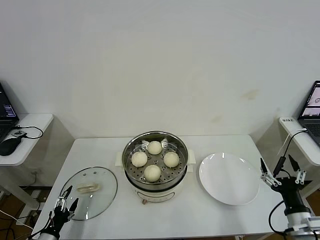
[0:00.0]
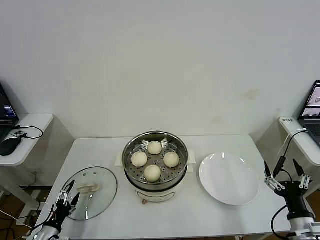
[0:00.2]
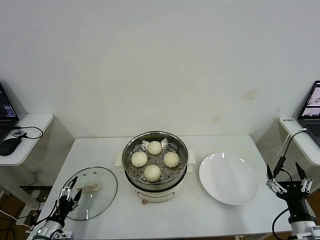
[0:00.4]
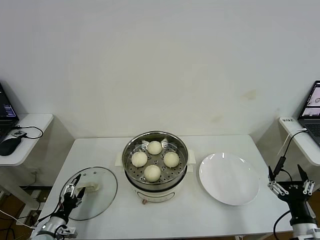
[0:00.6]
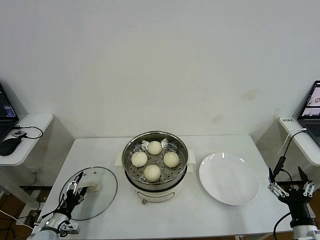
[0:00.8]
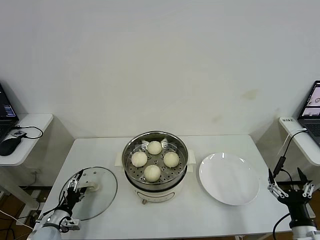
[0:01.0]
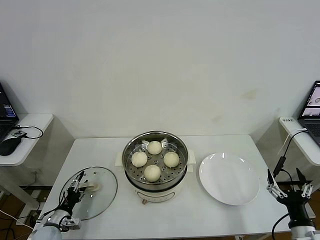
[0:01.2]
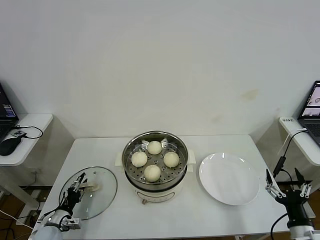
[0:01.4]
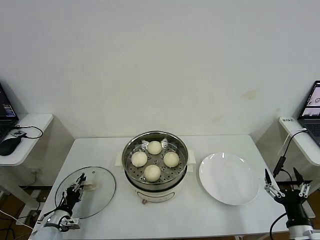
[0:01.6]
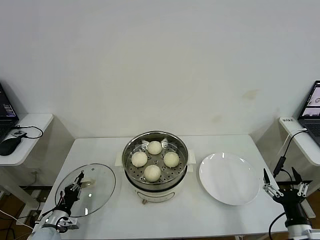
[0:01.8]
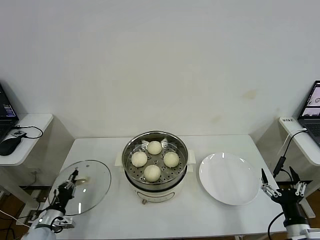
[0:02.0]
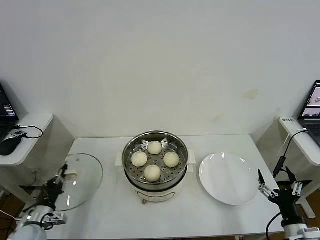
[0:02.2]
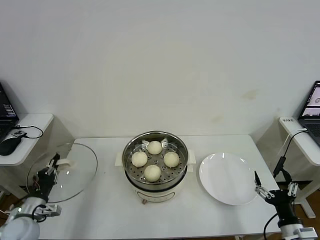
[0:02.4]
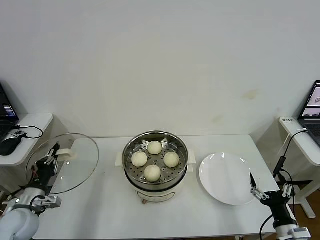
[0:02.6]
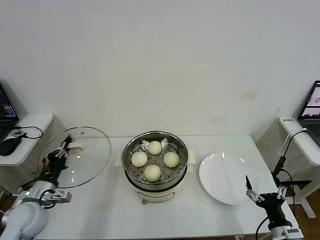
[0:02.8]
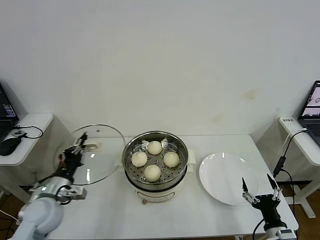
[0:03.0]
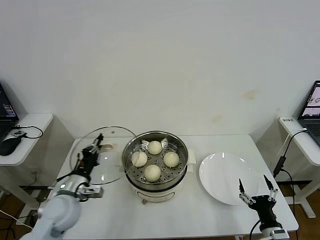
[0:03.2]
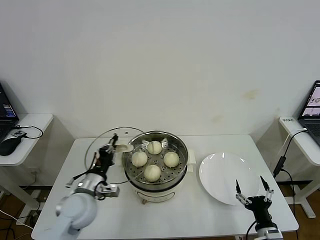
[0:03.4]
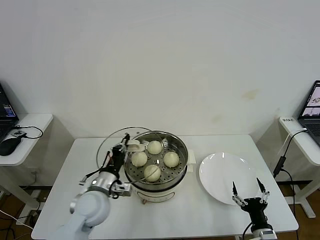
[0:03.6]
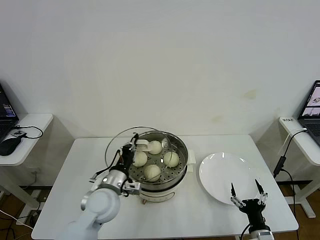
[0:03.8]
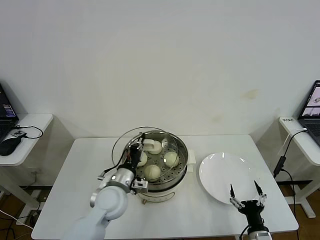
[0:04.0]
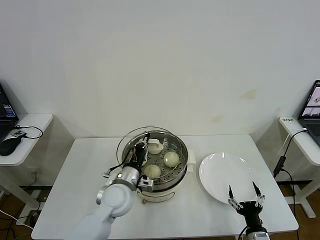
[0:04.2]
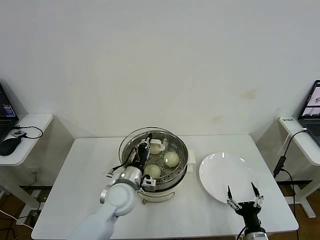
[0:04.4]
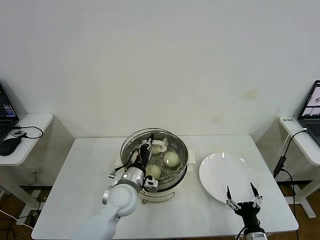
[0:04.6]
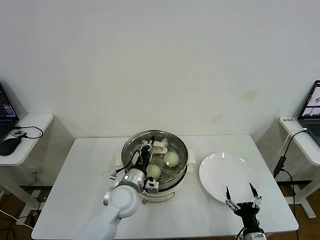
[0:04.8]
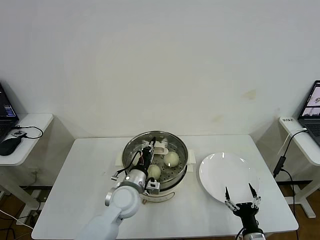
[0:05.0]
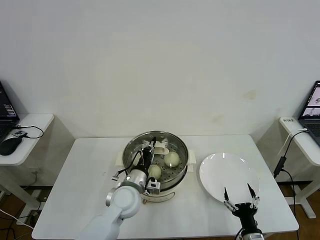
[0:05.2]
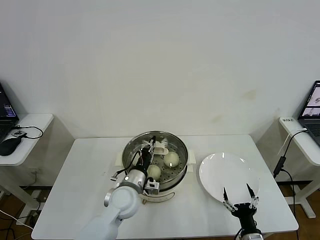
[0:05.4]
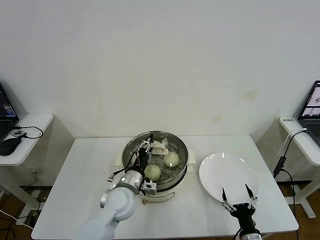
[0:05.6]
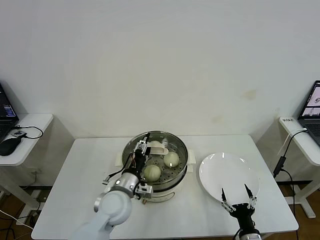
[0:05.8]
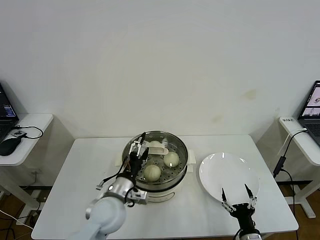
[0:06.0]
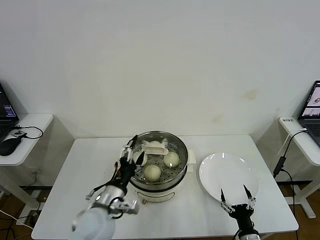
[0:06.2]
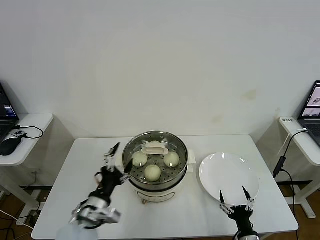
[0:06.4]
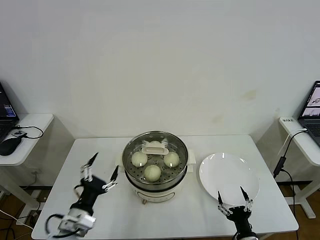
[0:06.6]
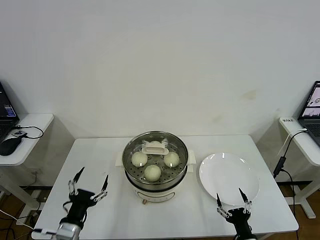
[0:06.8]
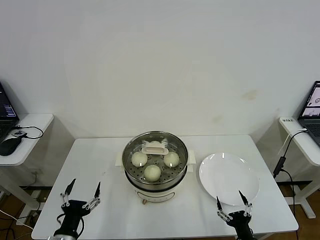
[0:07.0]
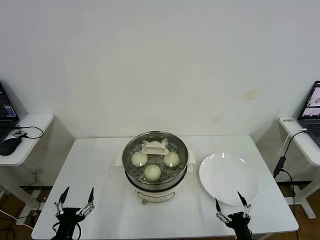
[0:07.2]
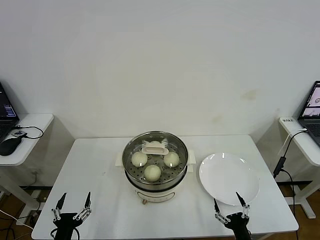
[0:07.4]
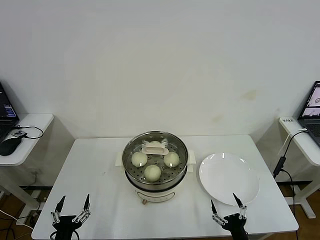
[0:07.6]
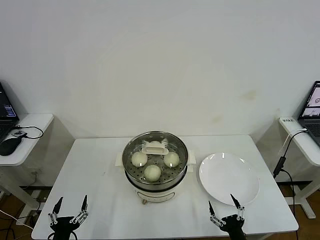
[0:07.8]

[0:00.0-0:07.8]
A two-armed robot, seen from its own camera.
Step, 0:02.0 to 0:05.4: Place the pot lid on the steamer with left gripper.
0:00.0 to 0:01.6: The left gripper travels forward by approximately 10 cm, and closes its fingers.
0:01.6 to 0:03.2: The right gripper travels downward by approximately 5 cm; the left gripper heads upward and to the right, covering about 25 cm.
0:03.2 to 0:04.6: The left gripper is displaced to the right by about 15 cm; the right gripper changes place by approximately 5 cm.
0:04.6 to 0:06.2: The left gripper heads backward, covering some 10 cm, and opens up.
0:06.2 to 0:07.8: The left gripper travels backward, to the left and downward by about 25 cm.

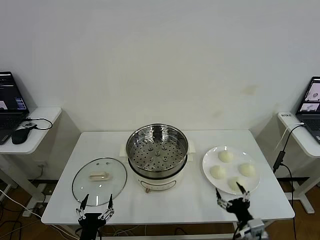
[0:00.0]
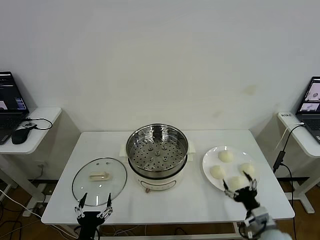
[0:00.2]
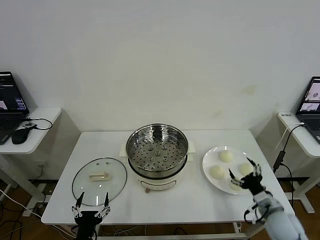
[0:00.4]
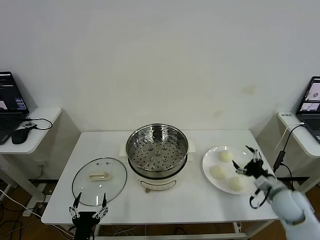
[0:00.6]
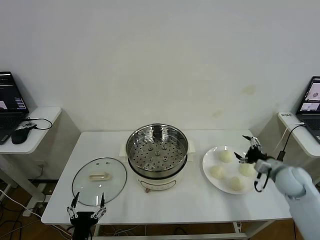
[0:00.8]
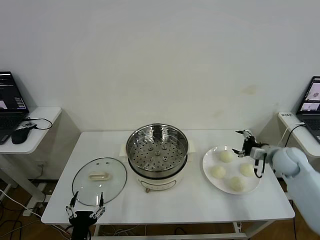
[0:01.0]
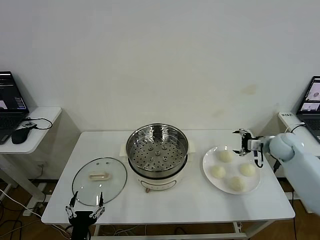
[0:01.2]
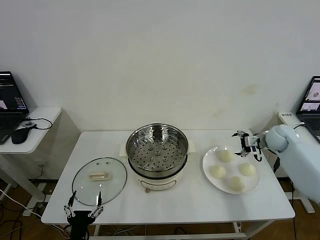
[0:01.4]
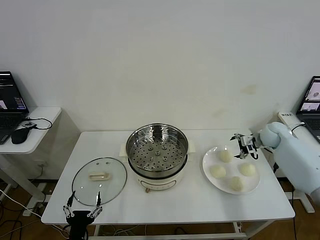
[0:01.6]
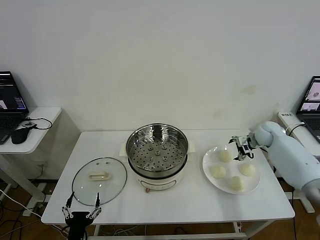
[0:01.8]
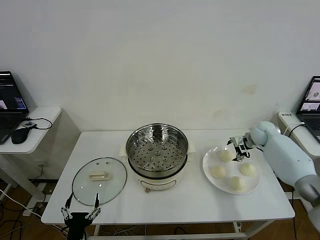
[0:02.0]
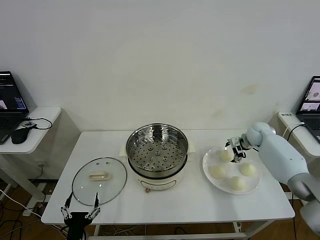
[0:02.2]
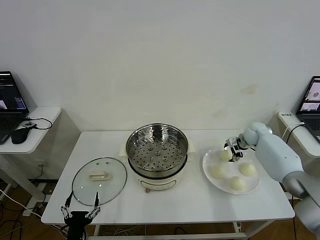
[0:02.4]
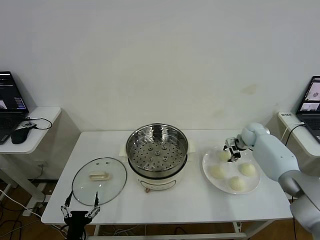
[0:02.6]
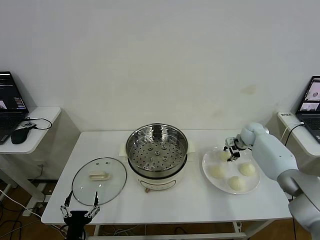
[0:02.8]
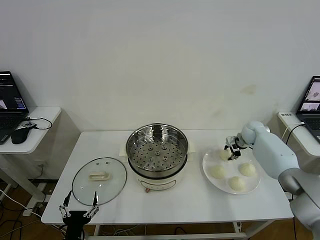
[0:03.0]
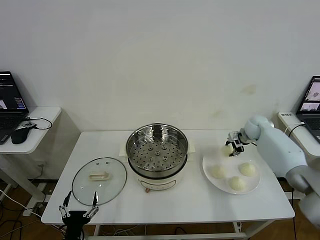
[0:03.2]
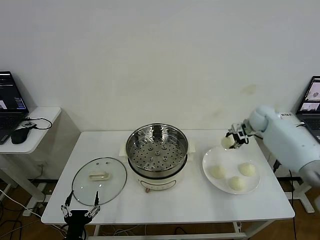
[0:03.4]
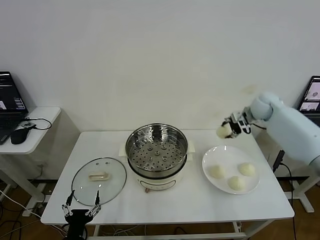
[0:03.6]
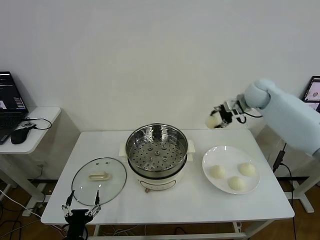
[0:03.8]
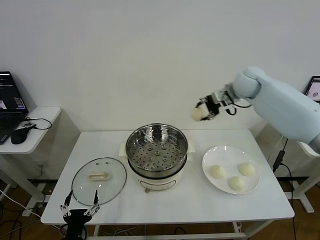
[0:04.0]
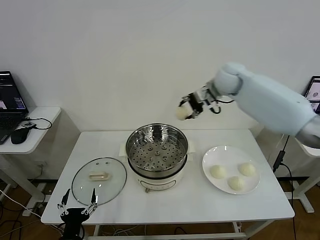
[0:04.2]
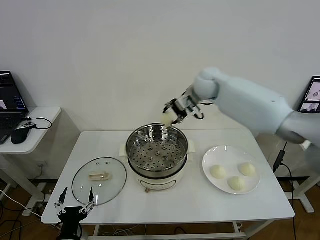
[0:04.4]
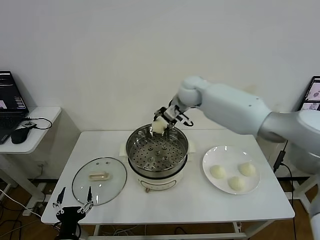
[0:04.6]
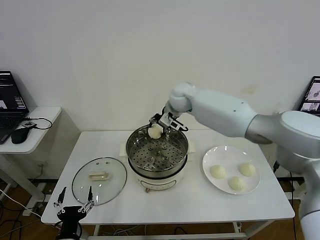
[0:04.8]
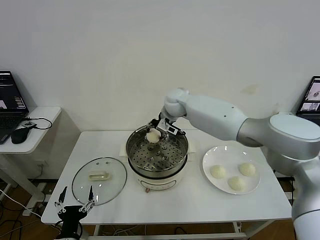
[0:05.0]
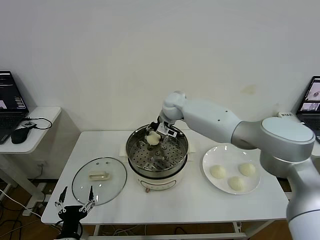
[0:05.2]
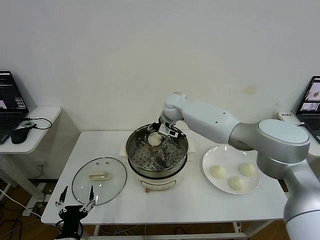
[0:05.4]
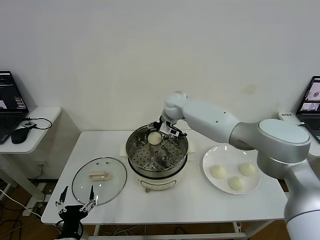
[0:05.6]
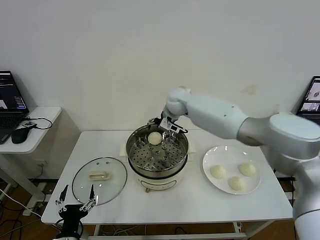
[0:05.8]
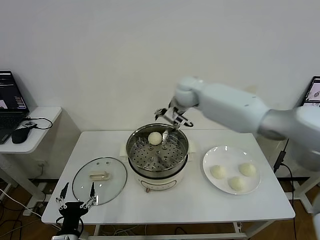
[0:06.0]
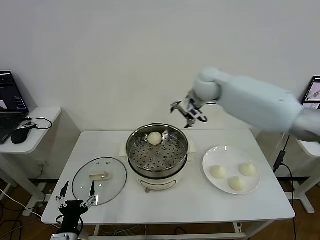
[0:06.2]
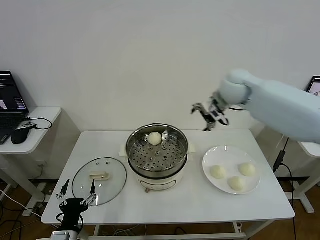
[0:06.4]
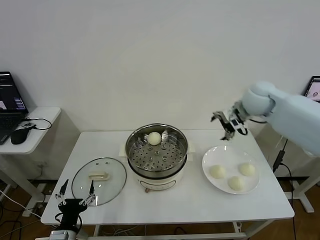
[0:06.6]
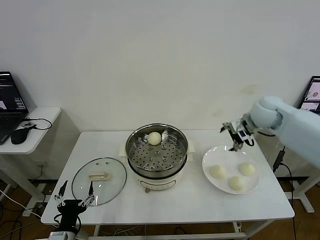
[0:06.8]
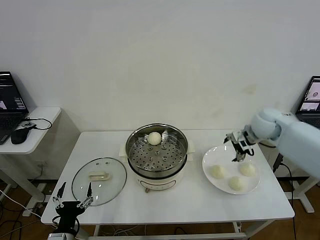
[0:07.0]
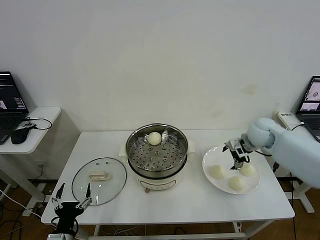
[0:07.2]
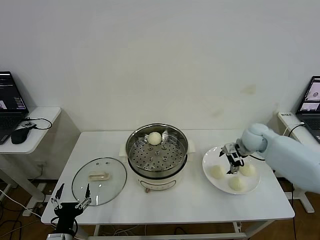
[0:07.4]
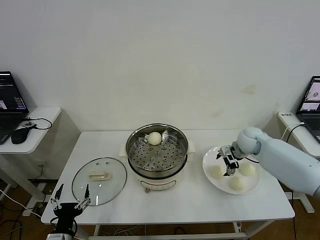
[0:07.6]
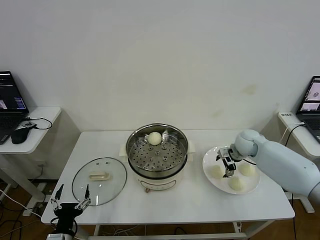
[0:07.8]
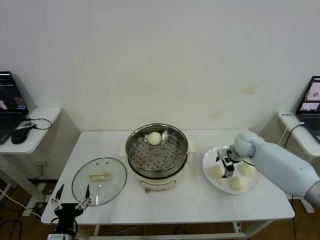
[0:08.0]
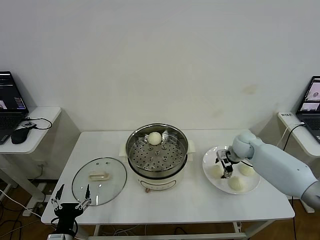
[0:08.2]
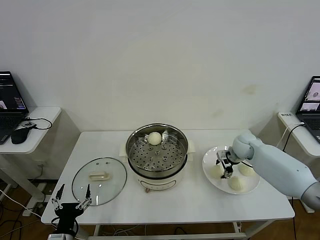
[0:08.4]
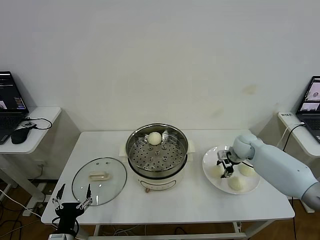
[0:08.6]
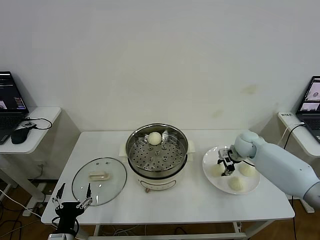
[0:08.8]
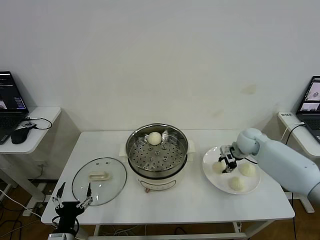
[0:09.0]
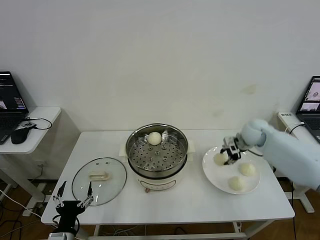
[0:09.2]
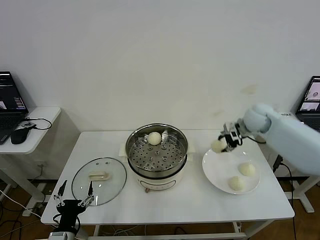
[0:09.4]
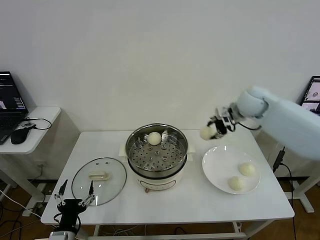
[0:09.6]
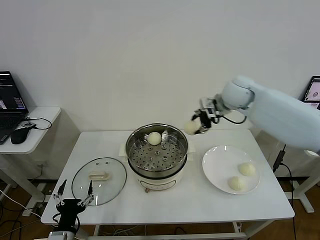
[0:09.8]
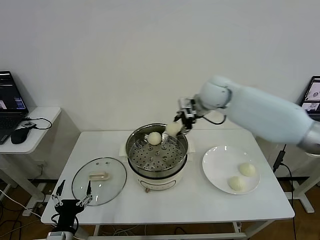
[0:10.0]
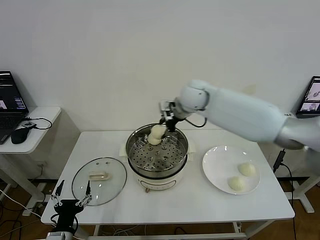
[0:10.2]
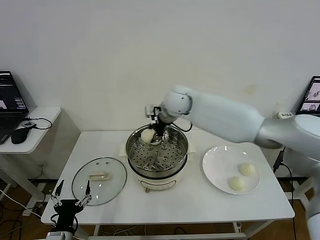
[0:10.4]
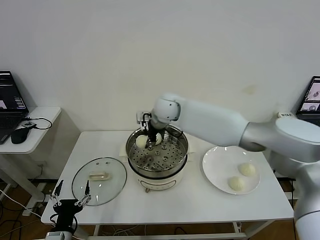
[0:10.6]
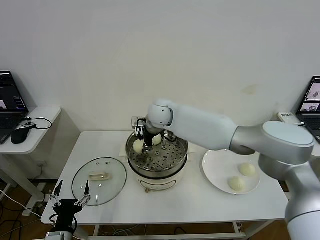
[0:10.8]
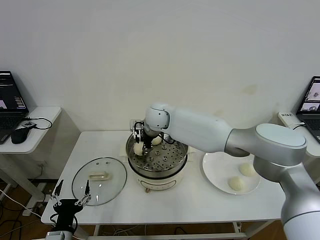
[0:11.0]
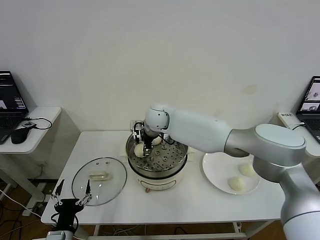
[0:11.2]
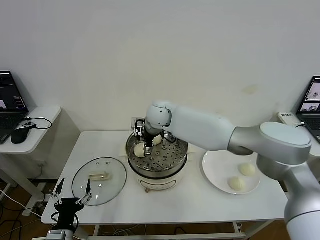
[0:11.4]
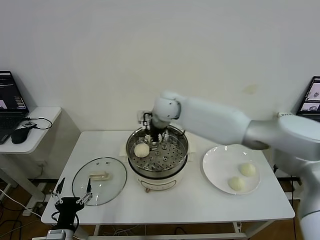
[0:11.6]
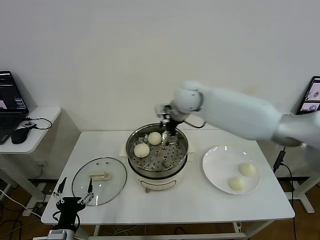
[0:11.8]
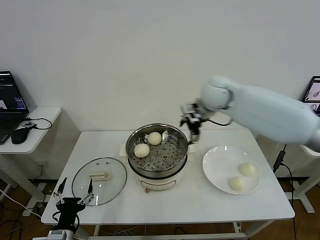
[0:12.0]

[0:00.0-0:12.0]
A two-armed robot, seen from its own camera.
Step, 0:00.0 to 0:02.8: Grasp the baozi in the plate with right gripper.
Step, 0:03.0 to 0:05.4: Place the baozi on the steamer with right gripper.
Step, 0:05.6 to 0:08.6: Grasp the baozi in the plate with right gripper.
Step, 0:09.0 to 0:11.2: Place the baozi on the steamer with right gripper.
0:01.6 to 0:03.0: The right gripper changes place by about 5 cm, and closes its fingers.
0:03.0 to 0:04.4: The right gripper goes some 35 cm to the left and upward.
0:04.4 to 0:06.0: The right gripper goes downward and returns, about 10 cm each way, and opens.
0:06.0 to 0:07.6: The right gripper moves downward and to the right, some 30 cm.
0:07.6 to 0:09.0: The right gripper closes up.
0:09.0 to 0:10.4: The right gripper moves to the left and upward, approximately 35 cm.
0:10.4 to 0:12.0: The right gripper heads to the right, covering some 15 cm, and opens.

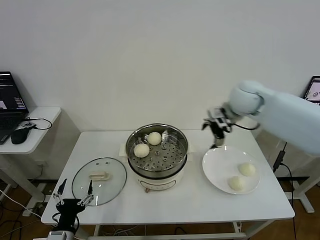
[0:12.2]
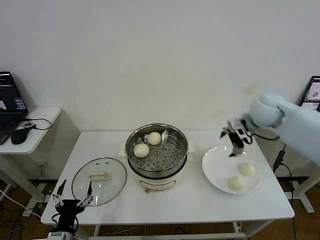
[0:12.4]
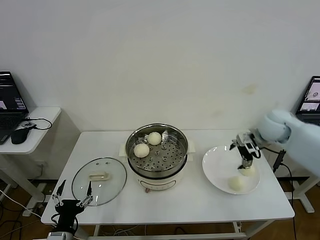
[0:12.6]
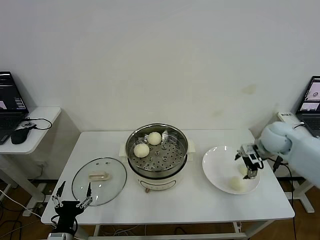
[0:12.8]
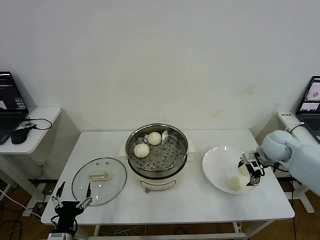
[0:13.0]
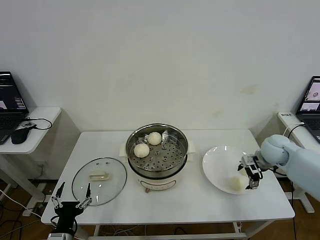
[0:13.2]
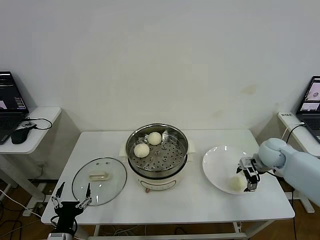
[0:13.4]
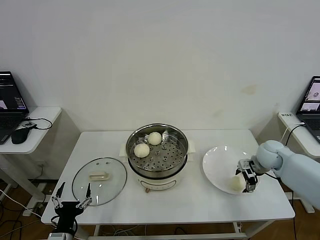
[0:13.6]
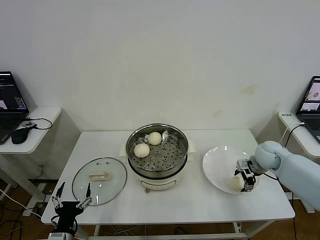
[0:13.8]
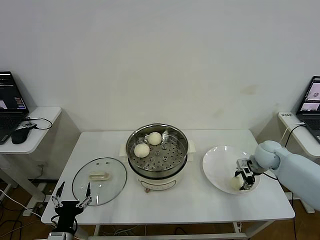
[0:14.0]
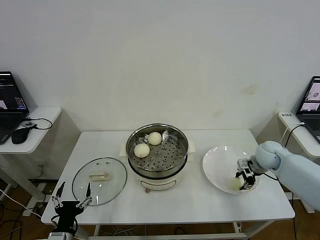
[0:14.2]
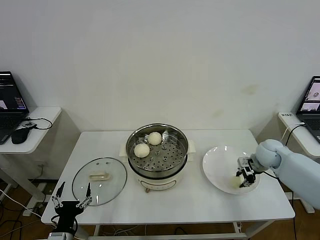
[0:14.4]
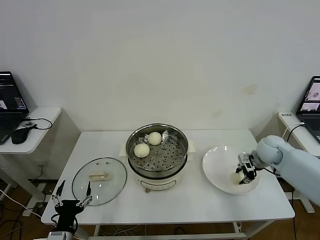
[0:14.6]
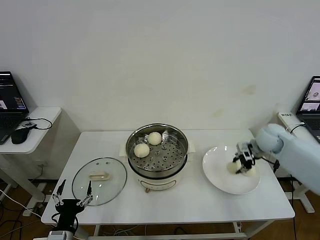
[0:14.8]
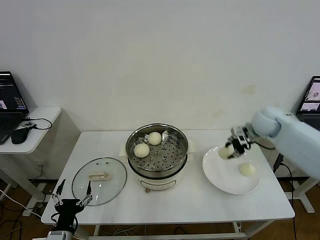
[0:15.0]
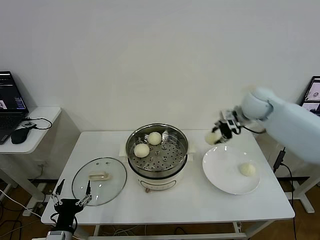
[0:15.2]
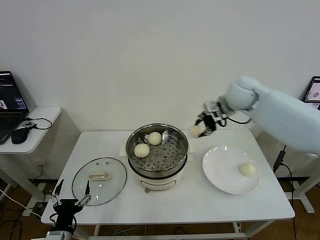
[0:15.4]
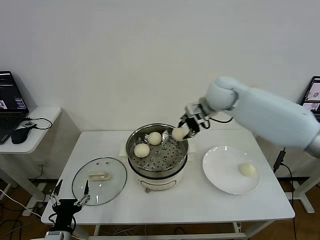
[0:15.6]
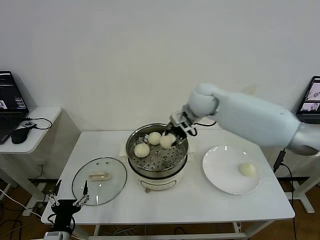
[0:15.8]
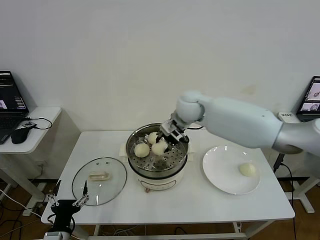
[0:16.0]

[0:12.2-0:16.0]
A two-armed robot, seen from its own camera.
Step, 0:12.2 to 0:14.4: Grasp the baozi in the plate with right gripper.
0:12.2 to 0:13.4: The right gripper moves downward and to the right, about 20 cm.
0:13.4 to 0:14.8: The right gripper travels upward by approximately 5 cm, and closes its fingers.
0:14.8 to 0:16.0: The right gripper goes roughly 30 cm to the left.
